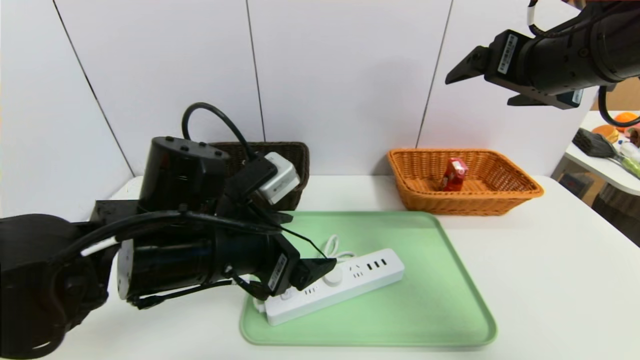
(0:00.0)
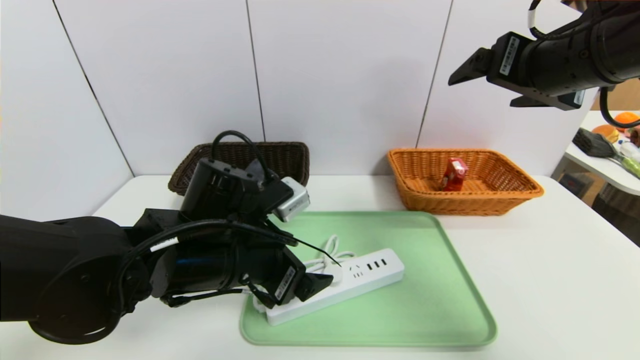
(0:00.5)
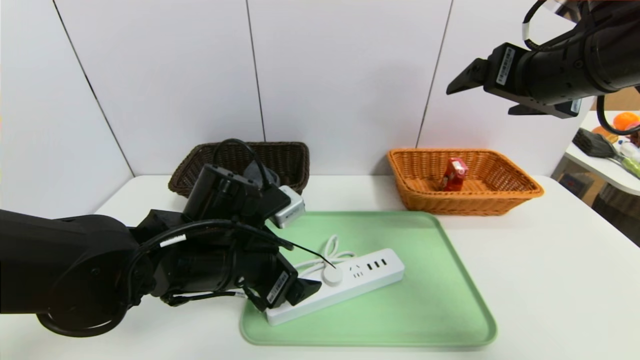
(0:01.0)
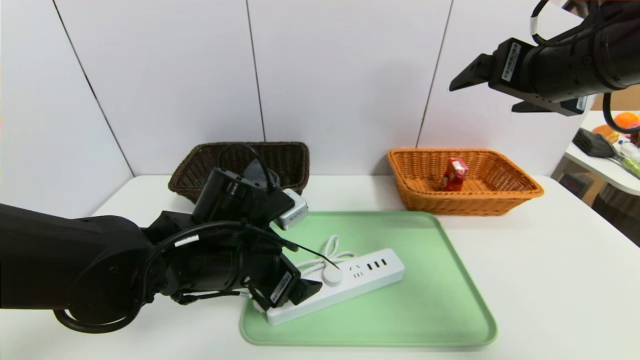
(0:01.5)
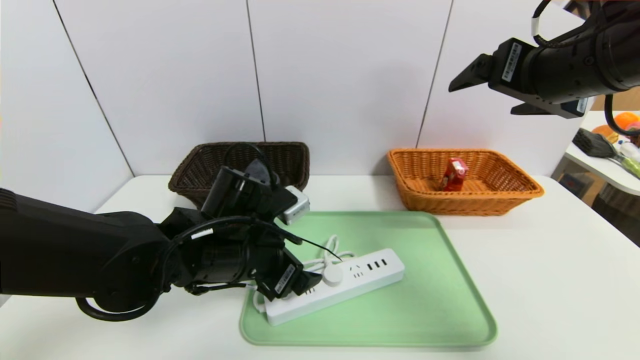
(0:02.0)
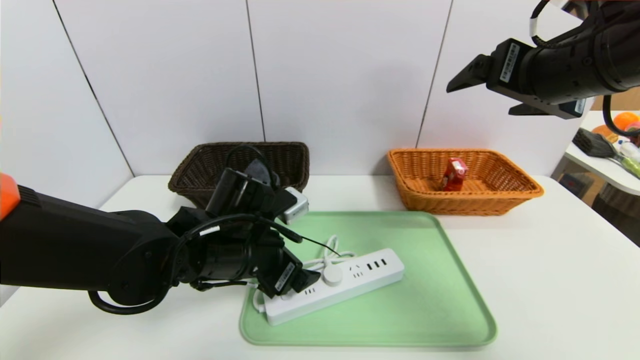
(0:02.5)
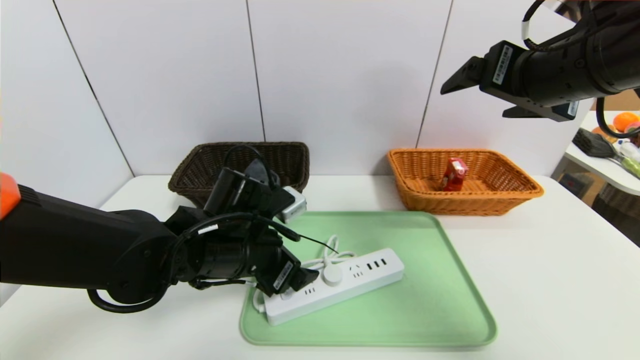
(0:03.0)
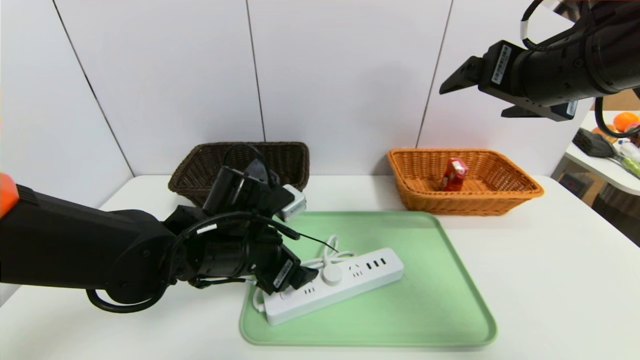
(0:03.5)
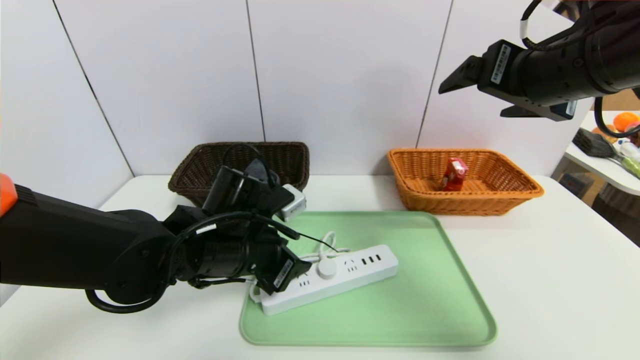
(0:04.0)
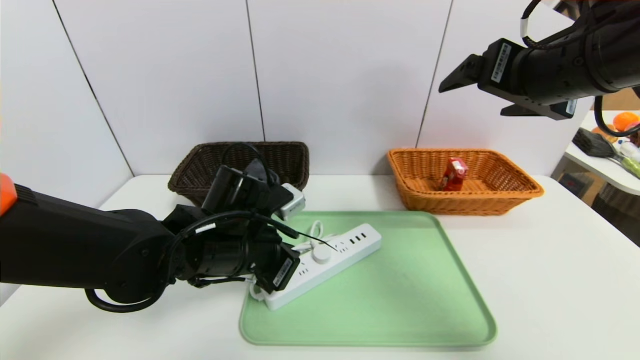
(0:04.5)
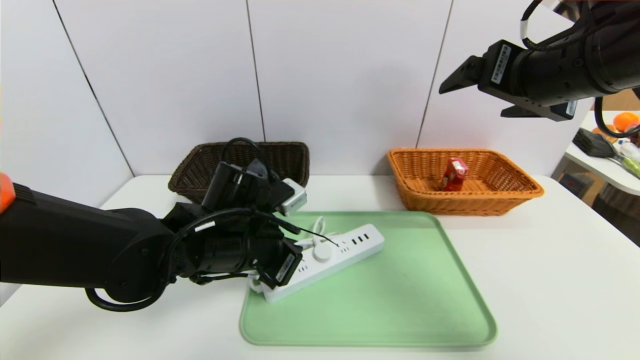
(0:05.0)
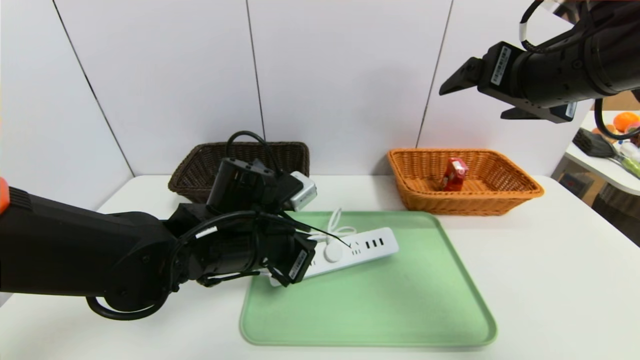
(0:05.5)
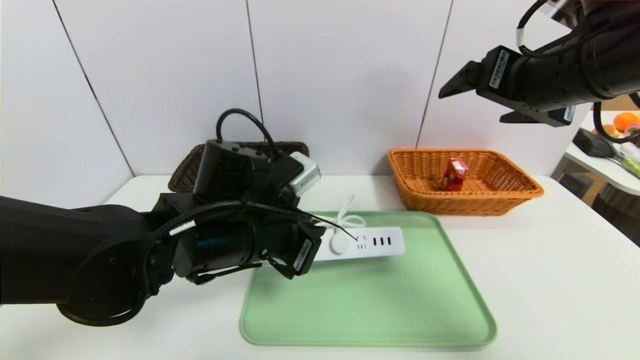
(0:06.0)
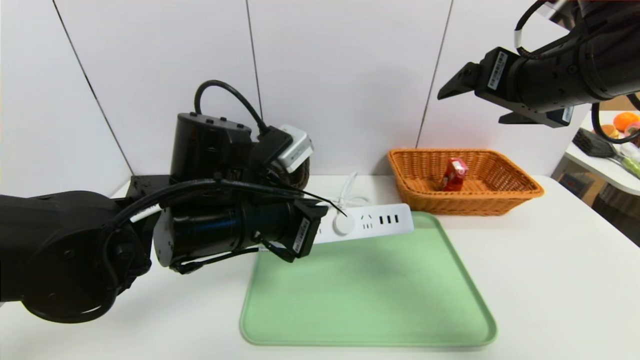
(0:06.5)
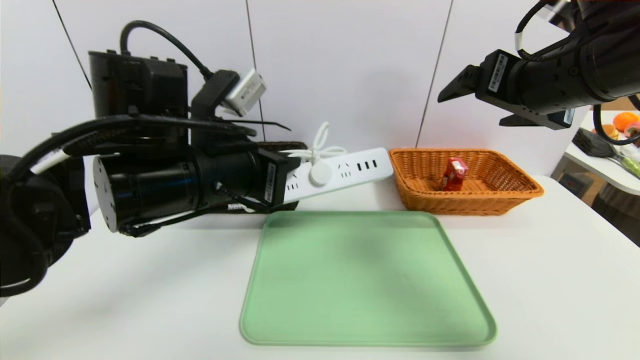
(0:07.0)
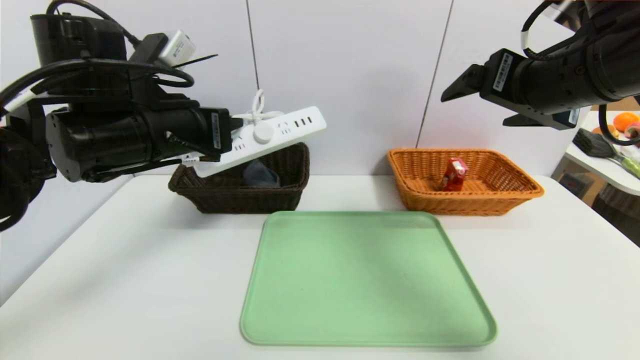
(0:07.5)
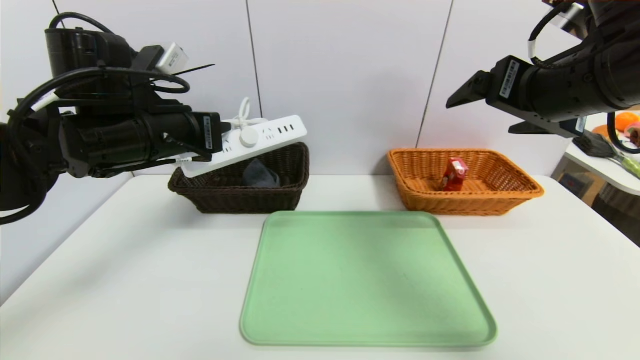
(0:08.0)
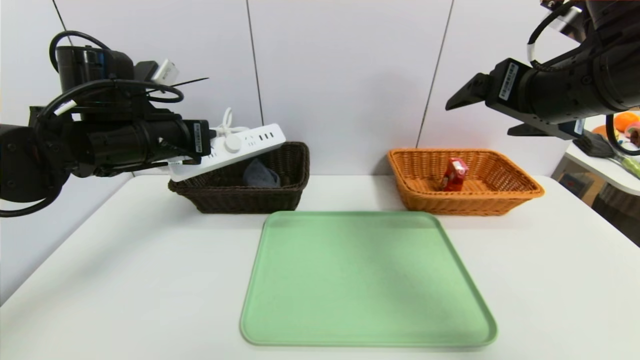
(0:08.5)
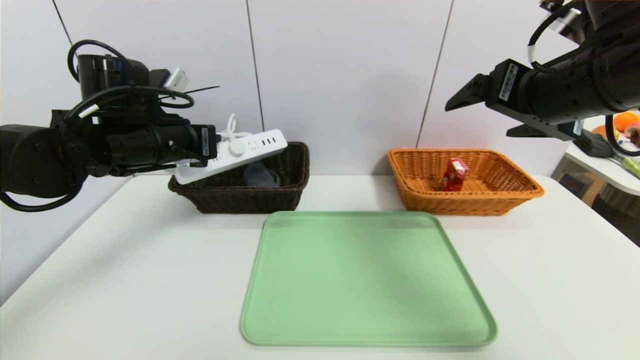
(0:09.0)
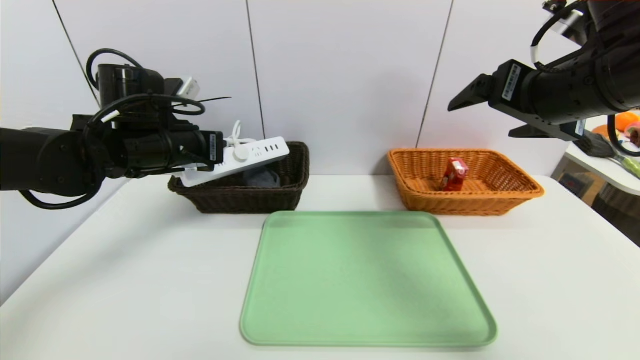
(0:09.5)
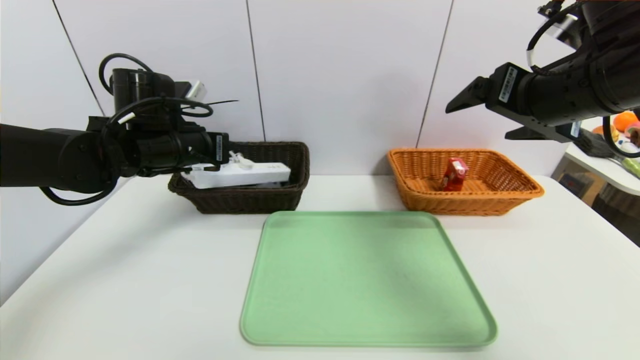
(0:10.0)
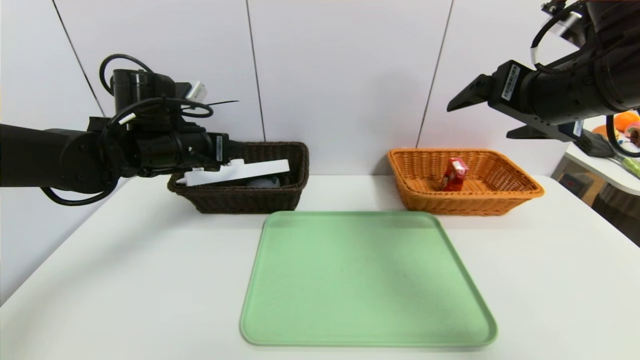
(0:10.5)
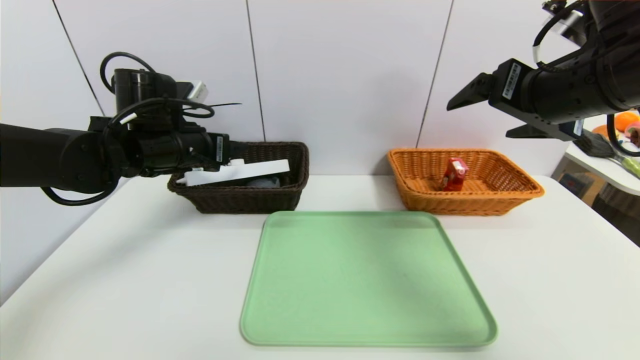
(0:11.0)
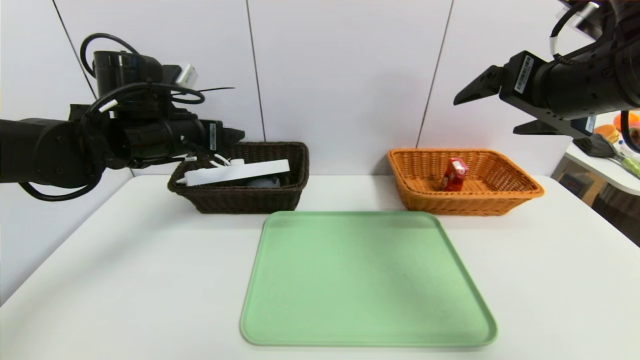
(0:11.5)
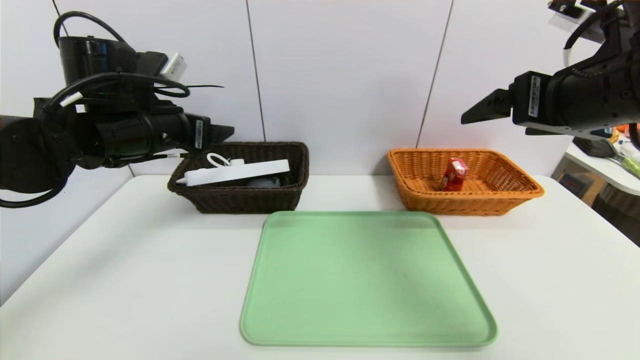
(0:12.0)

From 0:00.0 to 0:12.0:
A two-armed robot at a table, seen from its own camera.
Task of the whole recording: place the food in the right basket with the right gripper, and place the non food items in the left basket with the left gripper.
Step, from 0:00.0 to 0:10.5: Grasp the power strip and put it in the left basket.
From 0:00.0 to 0:02.0: The left gripper heads downward, covering approximately 5 cm.
From 0:02.0 to 0:04.0: The left gripper closes its fingers.
From 0:04.0 to 0:06.0: The left gripper changes place by roughly 5 cm, and closes its fingers.
From 0:06.0 to 0:08.0: The left gripper shifts roughly 15 cm to the left, upward and forward.
From 0:08.0 to 0:10.0: The left gripper heads forward, covering about 5 cm.
From 0:10.0 to 0:12.0: The left gripper changes place by some 5 cm, and opens its fingers.

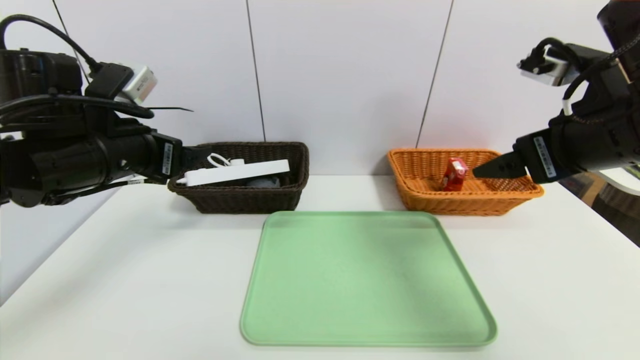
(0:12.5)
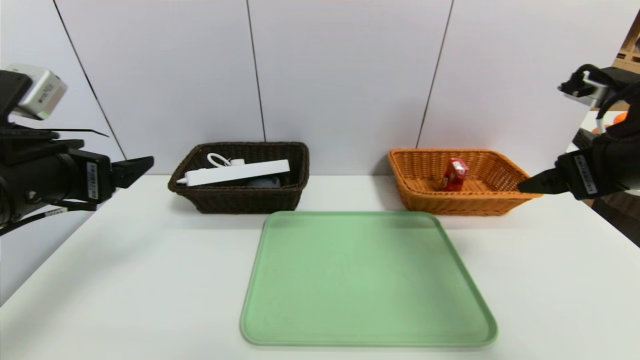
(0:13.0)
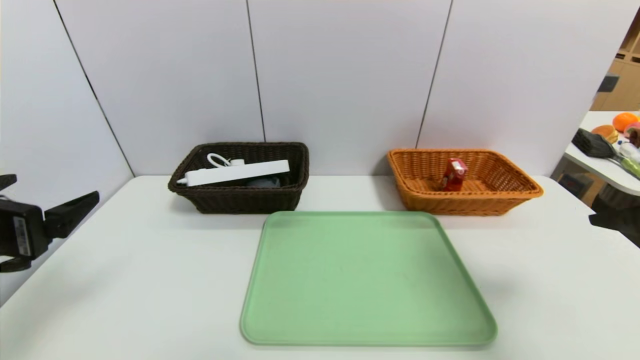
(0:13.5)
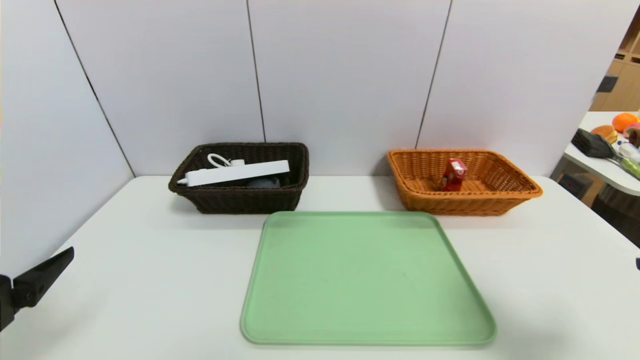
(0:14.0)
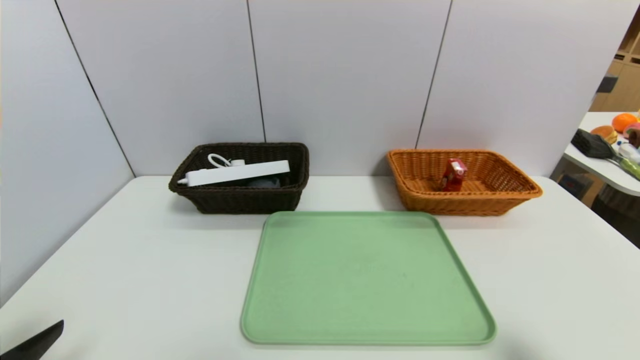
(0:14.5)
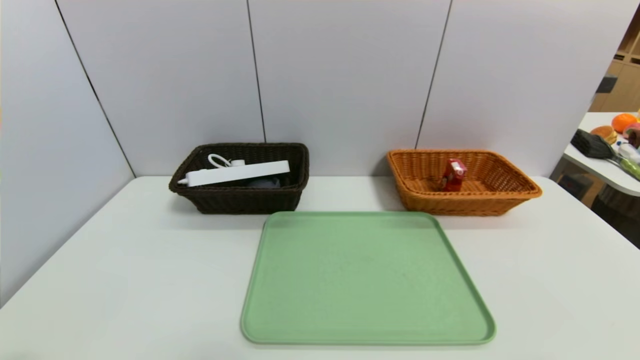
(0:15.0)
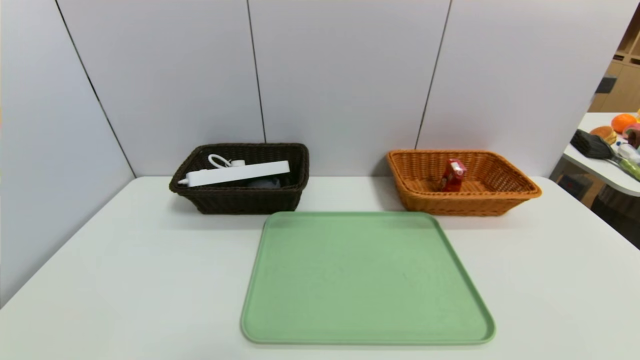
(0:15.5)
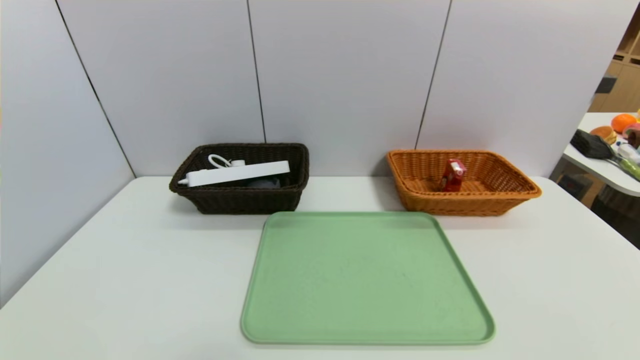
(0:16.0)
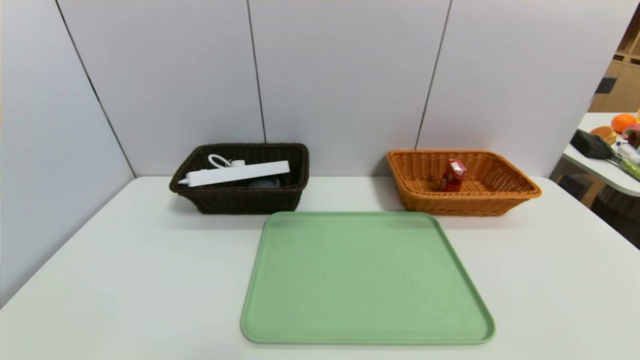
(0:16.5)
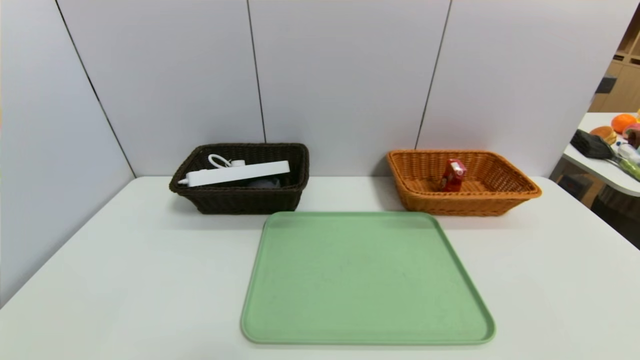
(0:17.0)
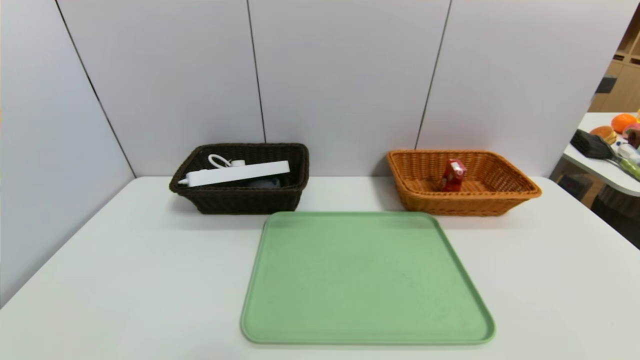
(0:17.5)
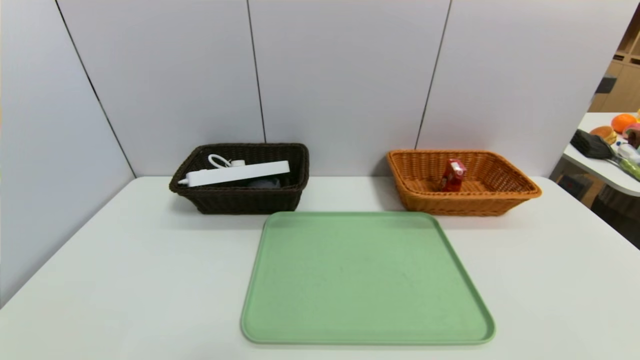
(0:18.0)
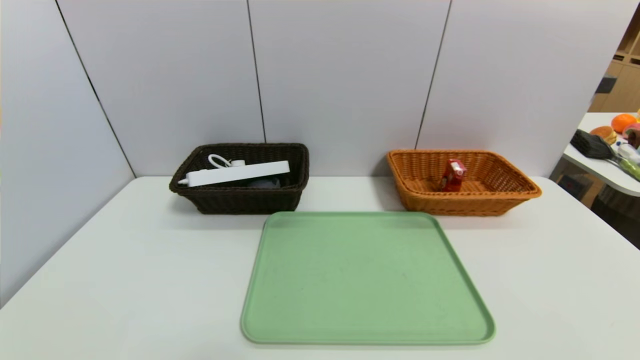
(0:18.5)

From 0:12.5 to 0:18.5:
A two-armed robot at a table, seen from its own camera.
Task of the whole recording: place the food in the right basket with the right gripper, and place the non food items in the left basket with the left gripper.
From 0:12.5 to 0:14.5: The right gripper goes roughly 25 cm backward, downward and to the right. The left gripper goes about 20 cm backward.
From 0:14.5 to 0:16.5: The right gripper goes roughly 15 cm downward and backward, while the left gripper goes approximately 10 cm backward and downward.

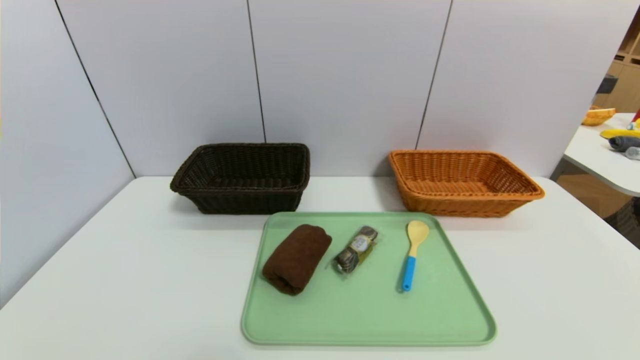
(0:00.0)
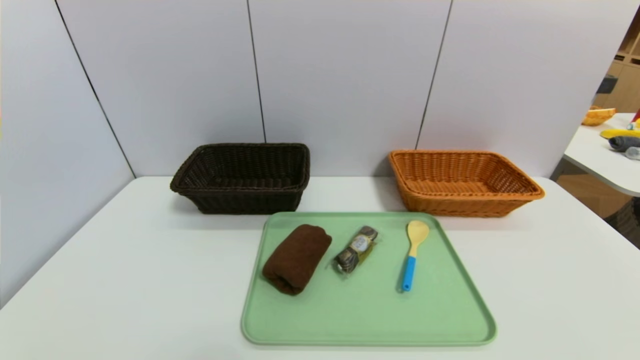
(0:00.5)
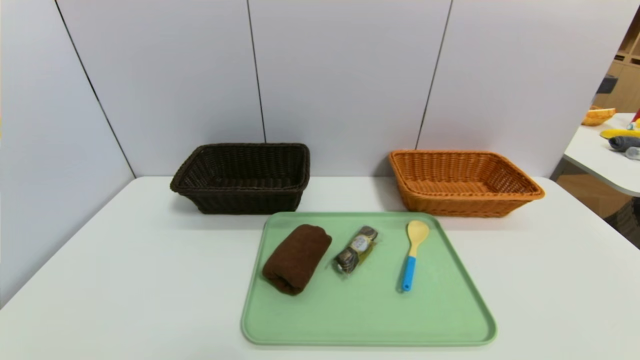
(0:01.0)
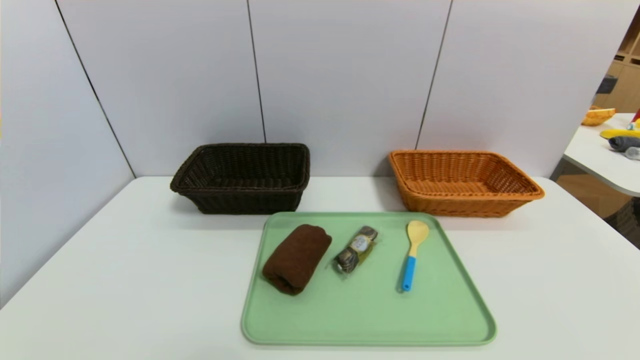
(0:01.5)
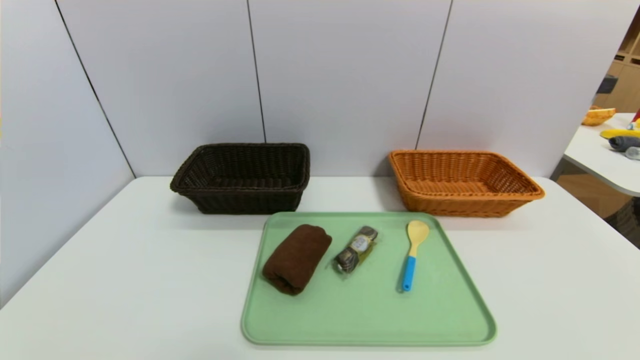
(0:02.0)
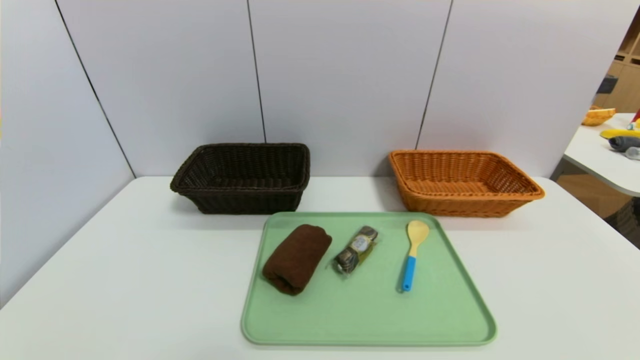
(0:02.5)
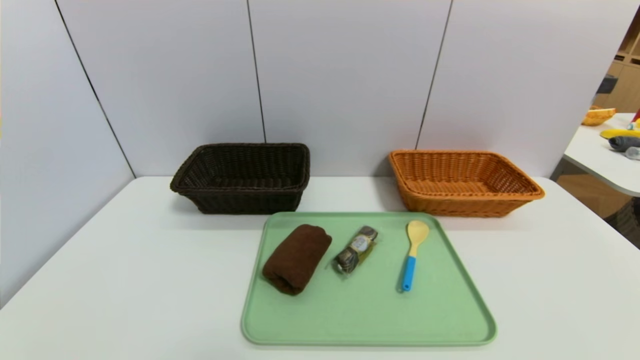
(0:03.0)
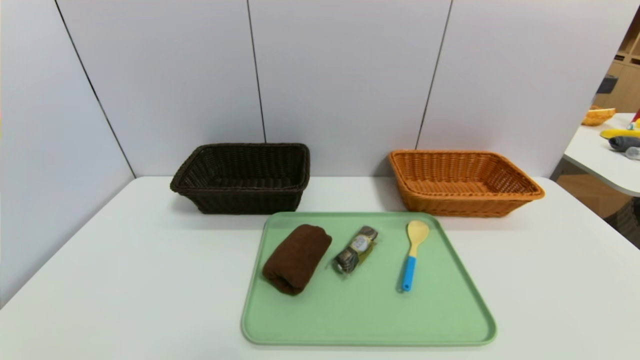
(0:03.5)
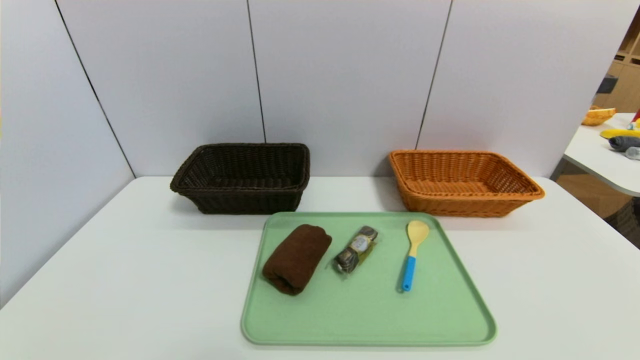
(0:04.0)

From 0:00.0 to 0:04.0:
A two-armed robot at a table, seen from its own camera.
Task of the whole recording: place the food in the right basket with the right gripper, and place the non food items in the left basket with the left gripper.
From 0:02.0 to 0:04.0: Both grippers stay put.
